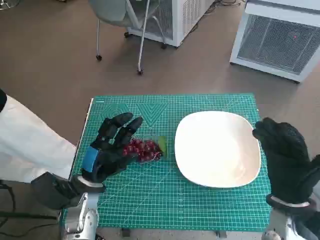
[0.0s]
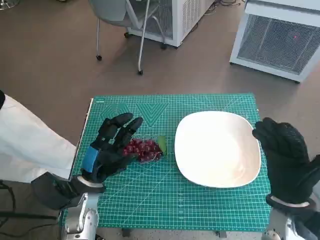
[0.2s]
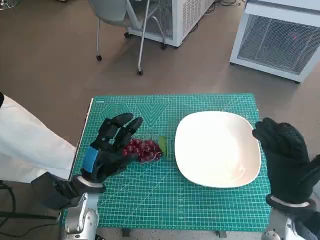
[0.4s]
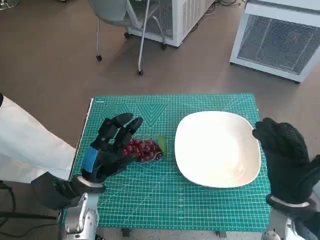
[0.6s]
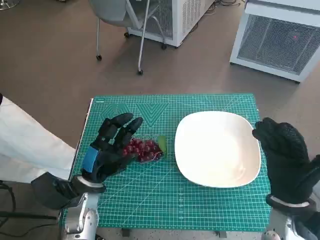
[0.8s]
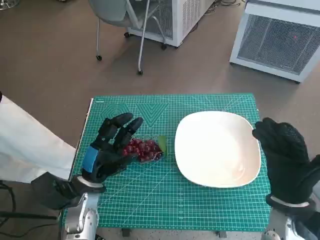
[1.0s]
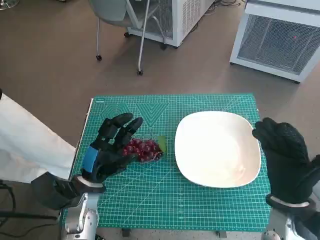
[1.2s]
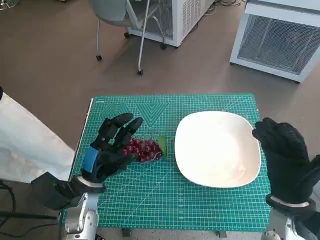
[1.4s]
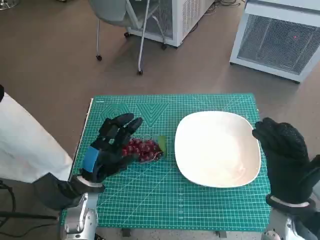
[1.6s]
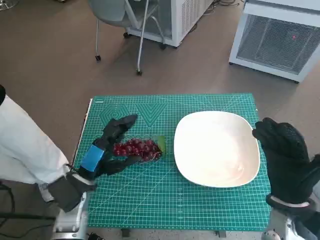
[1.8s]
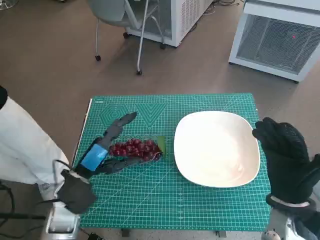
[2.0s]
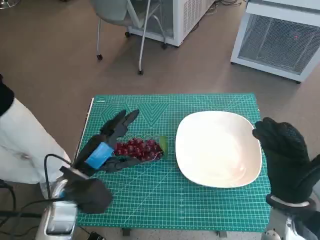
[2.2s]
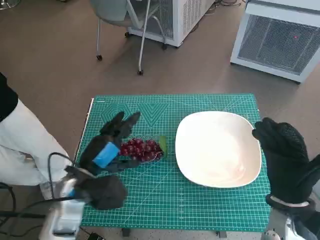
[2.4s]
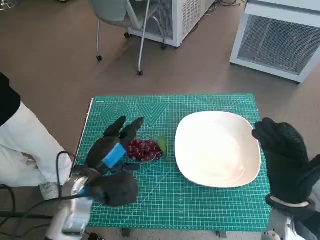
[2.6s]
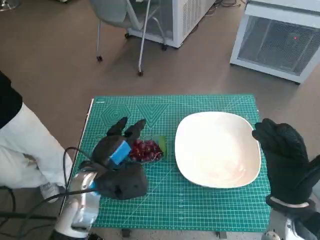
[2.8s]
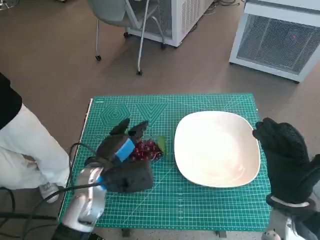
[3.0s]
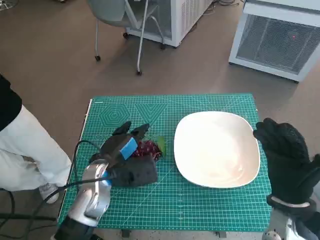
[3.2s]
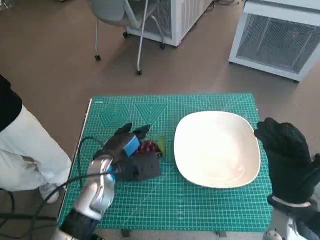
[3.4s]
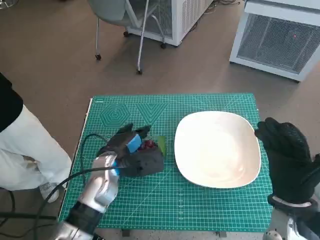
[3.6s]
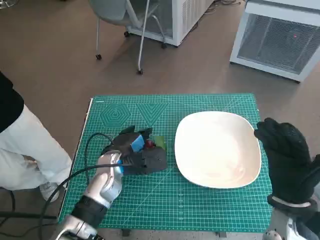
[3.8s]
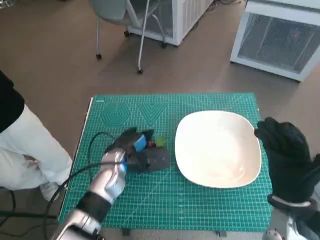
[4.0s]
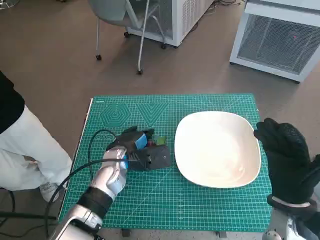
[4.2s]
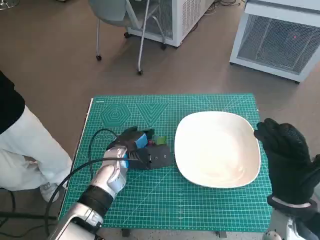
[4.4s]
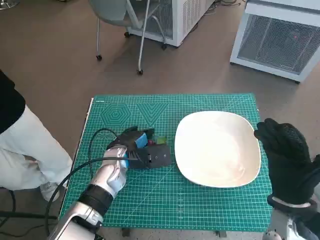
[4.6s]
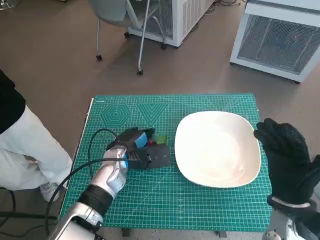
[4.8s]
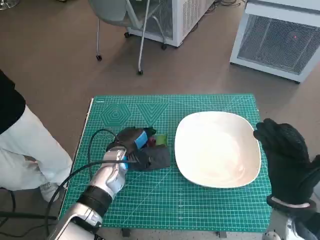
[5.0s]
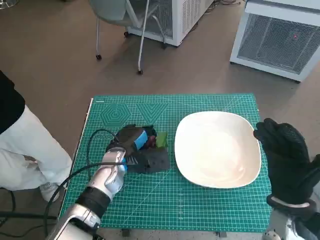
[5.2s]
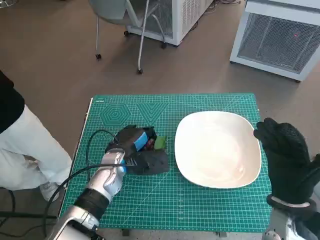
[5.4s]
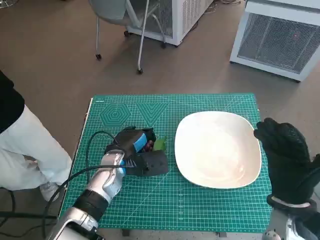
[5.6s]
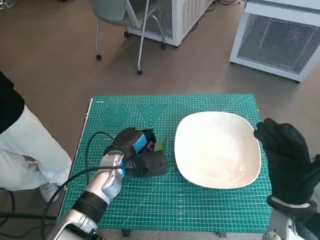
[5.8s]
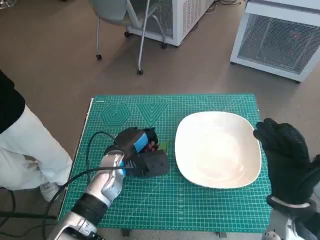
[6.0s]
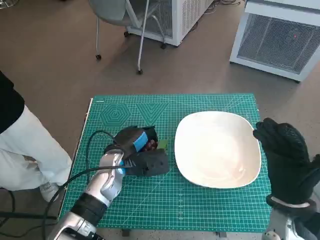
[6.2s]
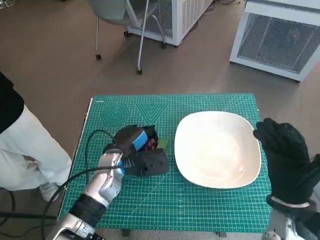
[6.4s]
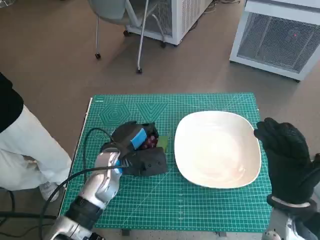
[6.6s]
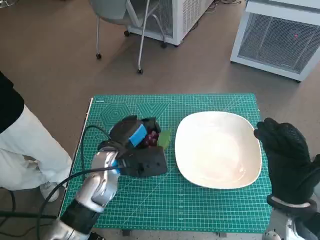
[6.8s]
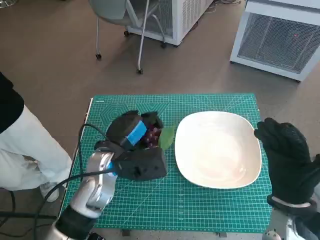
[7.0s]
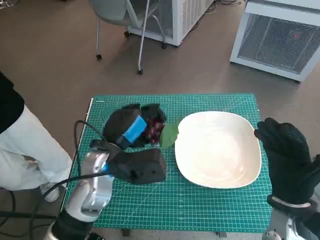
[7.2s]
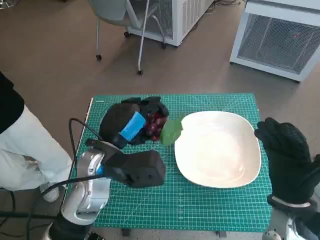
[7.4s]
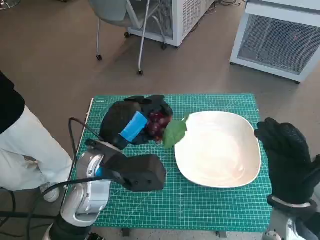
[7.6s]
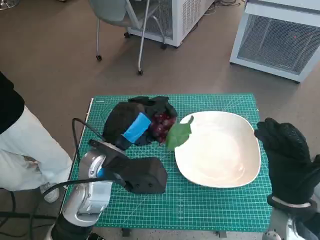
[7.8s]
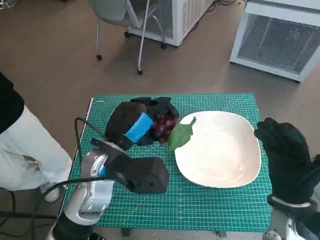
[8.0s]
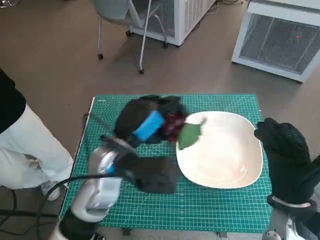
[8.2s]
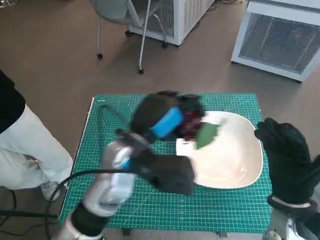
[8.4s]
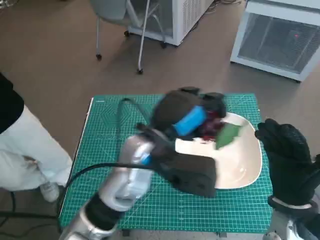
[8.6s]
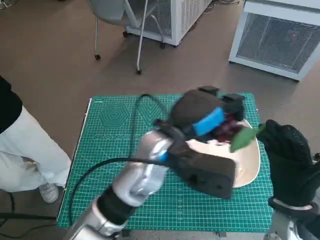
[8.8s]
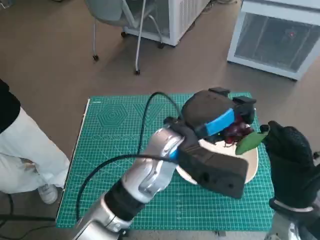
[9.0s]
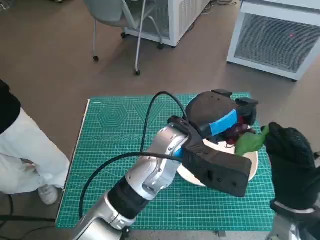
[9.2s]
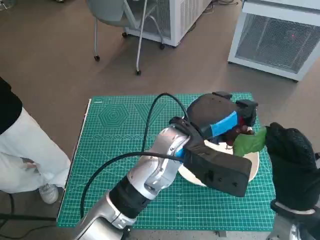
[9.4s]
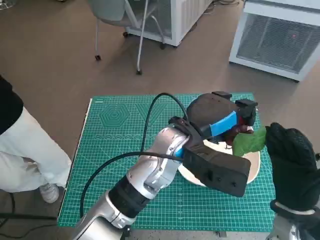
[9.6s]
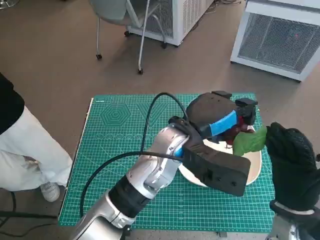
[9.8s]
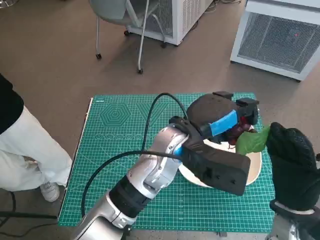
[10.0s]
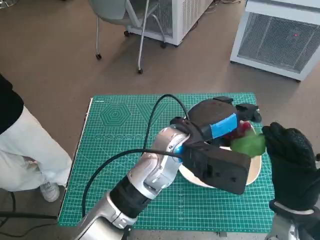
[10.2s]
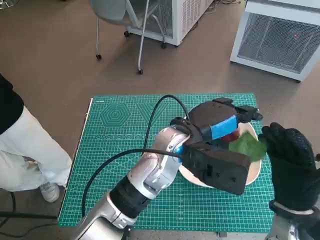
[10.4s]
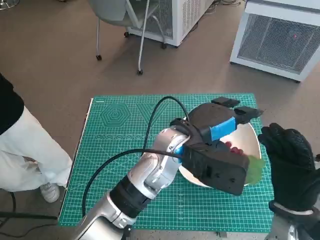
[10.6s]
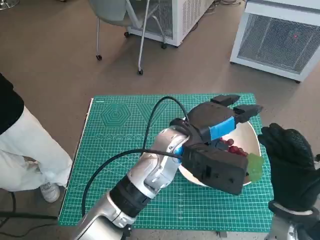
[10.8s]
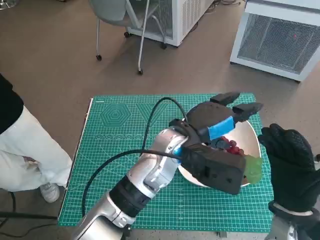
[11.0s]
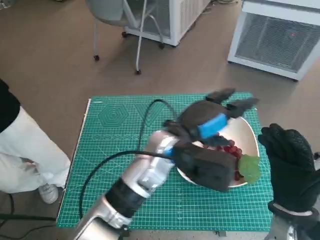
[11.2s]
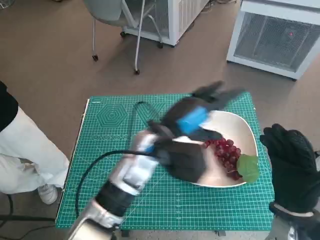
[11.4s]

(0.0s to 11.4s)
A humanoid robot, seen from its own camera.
Task of the whole recording: Pick up the grapes and put them on the plate.
Step, 0.0s - 5.8s: Grasp the grapes with left hand.
Step, 6.0s - 11.0s: Place the grapes in the plate with left hand.
1.4s - 2.8s: The left hand shifts by some 5 cm.
2.8s - 4.2s: The left hand shifts approximately 5 cm forward.
4.2s - 5.6s: The hands stay close to where they were, moving slightly.
5.6s - 7.2s: The left hand goes roughly 10 cm upward.
7.2s - 8.6s: The left hand moves to the right and upward, some 10 cm.
8.6s - 10.0s: The left hand shifts some 5 cm to the right.

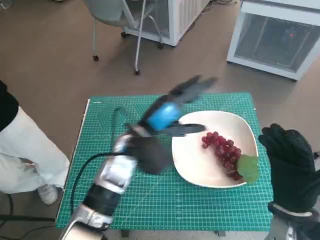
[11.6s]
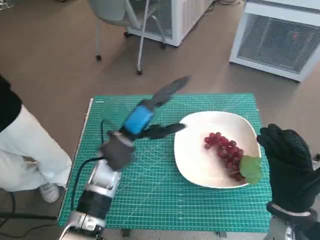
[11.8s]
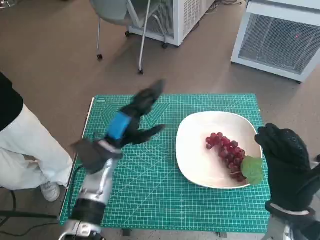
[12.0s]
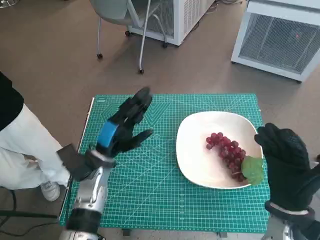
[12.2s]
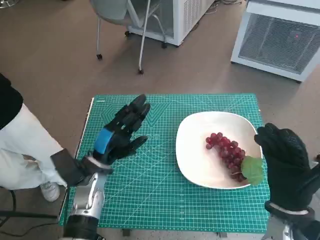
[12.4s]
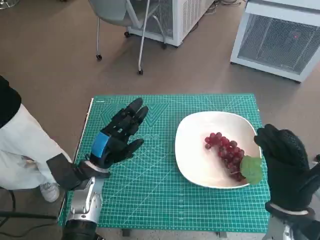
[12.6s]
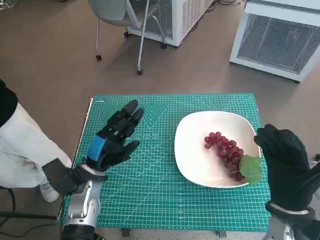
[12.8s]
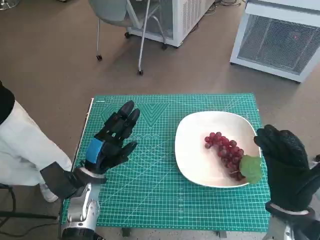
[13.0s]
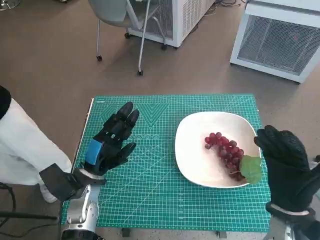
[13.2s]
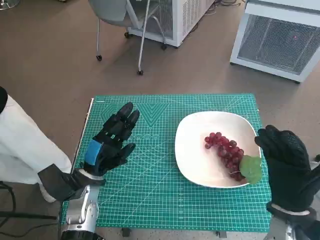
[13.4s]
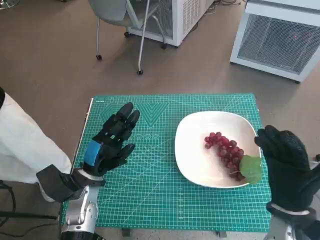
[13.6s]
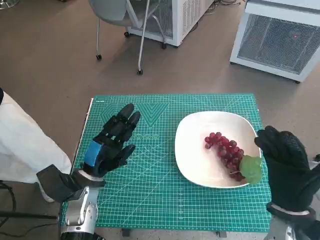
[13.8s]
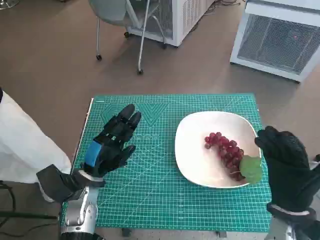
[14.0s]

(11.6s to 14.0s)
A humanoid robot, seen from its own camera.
Task of the whole recording: Pick up the grapes and put them on the plate.
11.6s - 12.8s: The left hand is displaced to the left and downward by about 15 cm.
12.8s - 14.0s: The two hands keep their place.

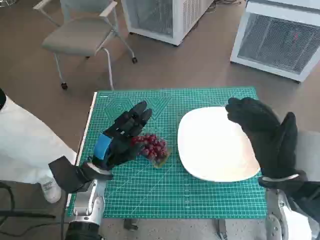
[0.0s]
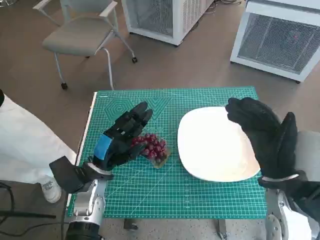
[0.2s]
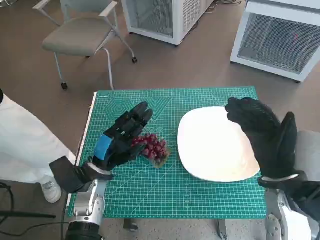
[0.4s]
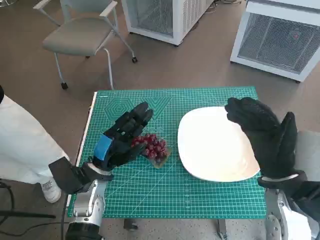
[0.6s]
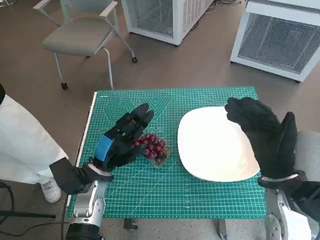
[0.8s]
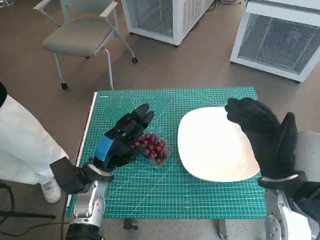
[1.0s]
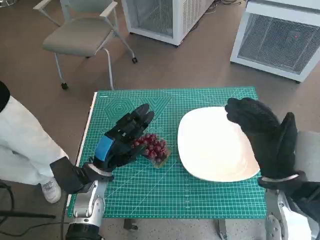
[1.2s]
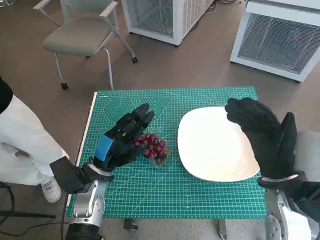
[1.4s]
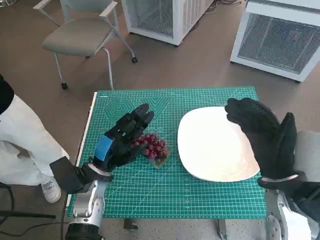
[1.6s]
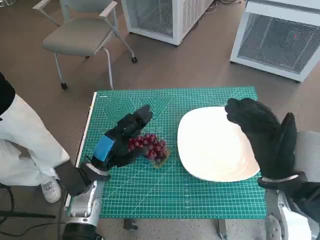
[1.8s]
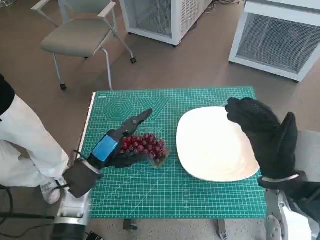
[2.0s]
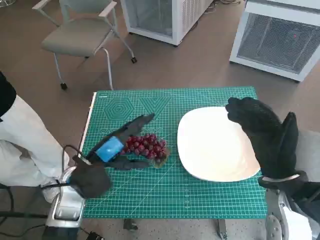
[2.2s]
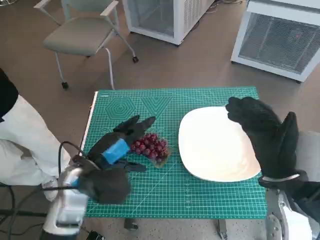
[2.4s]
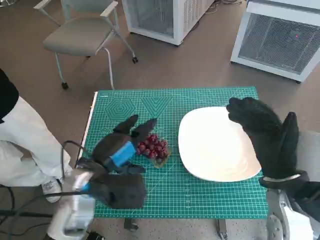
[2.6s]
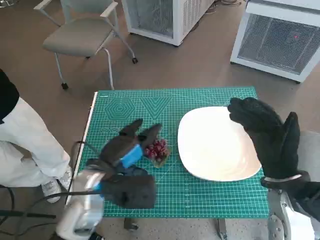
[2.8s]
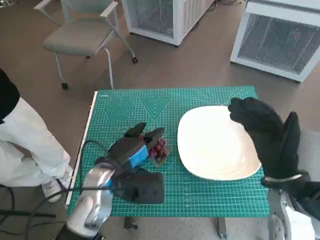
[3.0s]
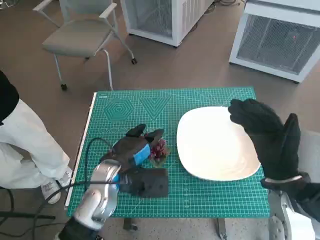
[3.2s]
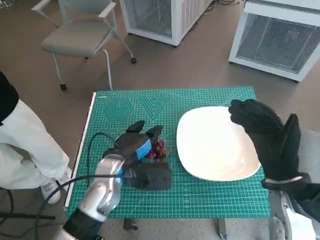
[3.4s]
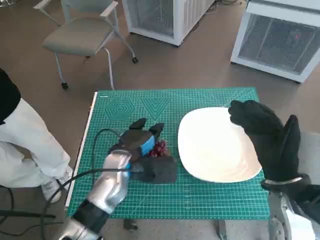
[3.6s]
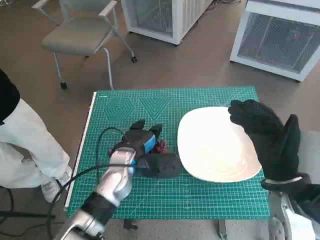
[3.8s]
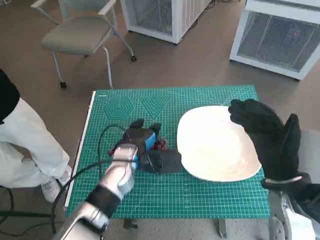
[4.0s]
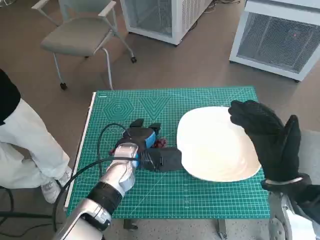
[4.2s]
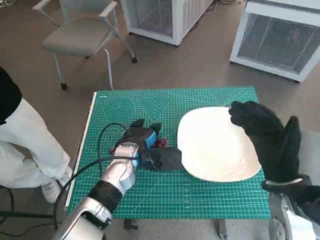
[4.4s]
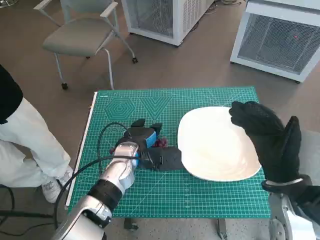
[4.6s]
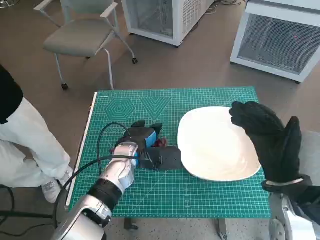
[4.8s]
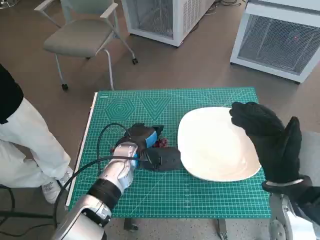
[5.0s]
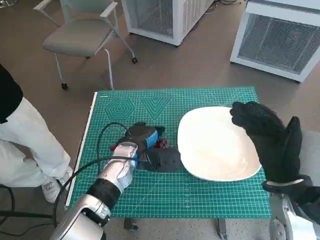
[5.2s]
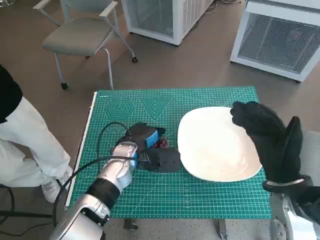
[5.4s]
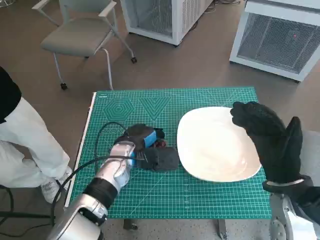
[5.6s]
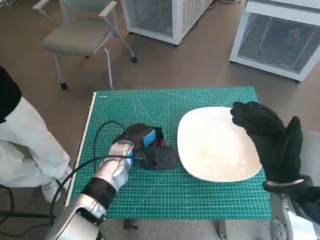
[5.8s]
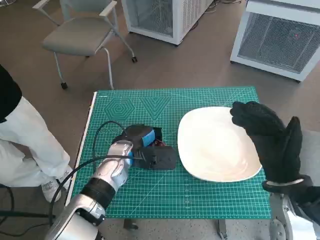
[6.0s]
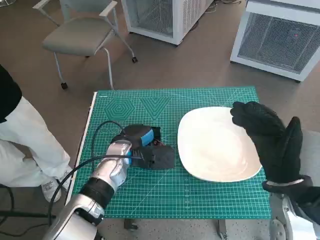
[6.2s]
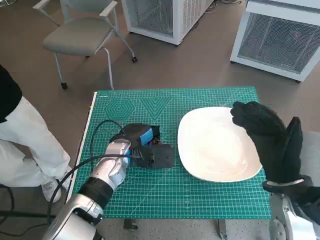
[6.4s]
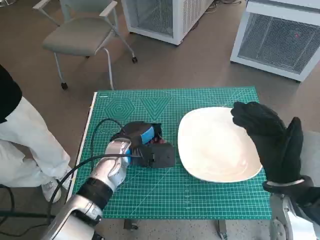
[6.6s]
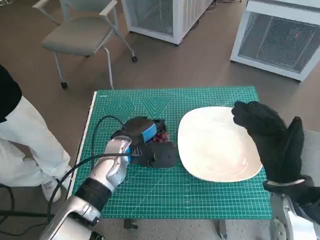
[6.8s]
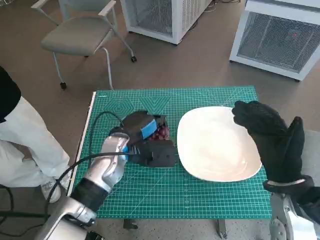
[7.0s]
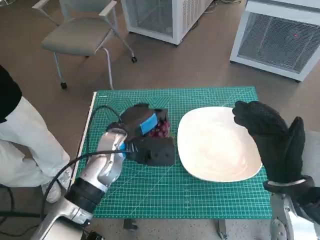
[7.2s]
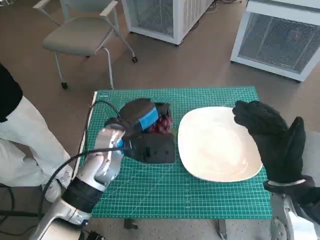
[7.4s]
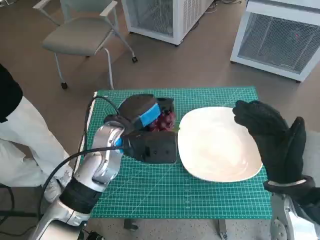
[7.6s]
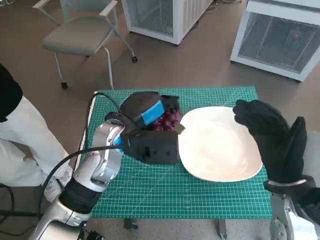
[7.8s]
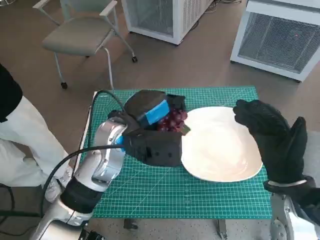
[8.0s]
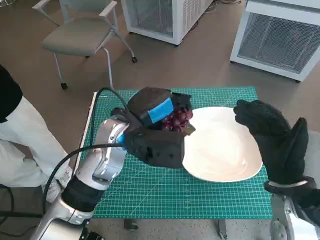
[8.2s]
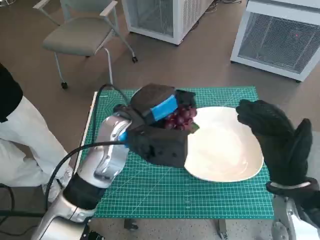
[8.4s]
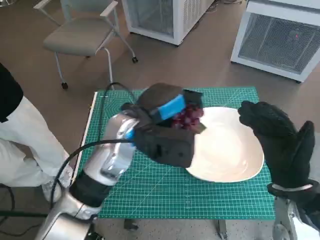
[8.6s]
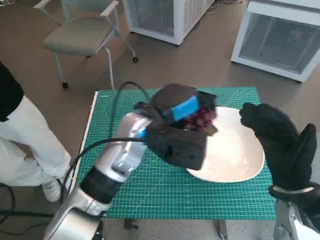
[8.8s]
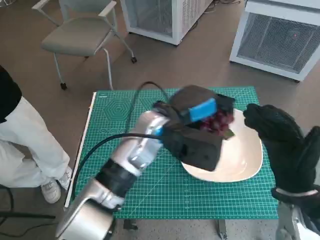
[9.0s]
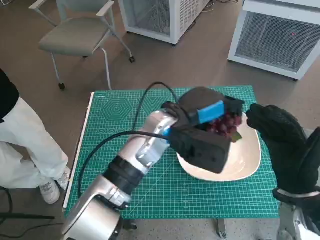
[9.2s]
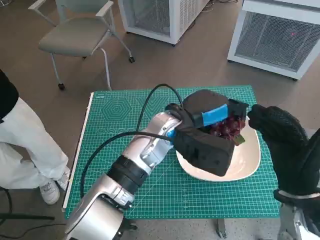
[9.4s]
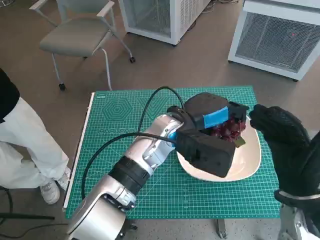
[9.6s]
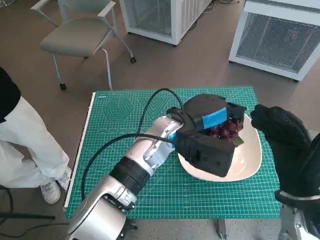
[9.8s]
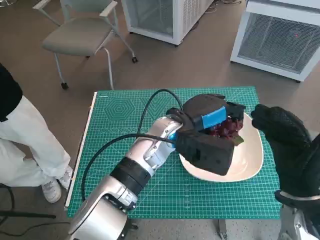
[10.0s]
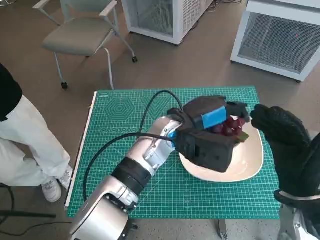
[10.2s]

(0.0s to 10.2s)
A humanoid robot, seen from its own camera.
Task of the whole recording: Pick up the grapes and put them on the plate.
Step, 0.0s - 6.6s: Grasp the grapes with left hand.
1.4s - 3.0s: The left hand moves upward, approximately 5 cm.
3.0s - 4.4s: The left hand moves forward, approximately 10 cm.
4.4s - 5.8s: The hands move only a little.
5.8s - 7.2s: The left hand heads upward, covering some 5 cm.
7.2s - 8.8s: The left hand heads upward and to the right, covering some 10 cm.
8.8s - 10.2s: The left hand is displaced to the right by about 5 cm.
